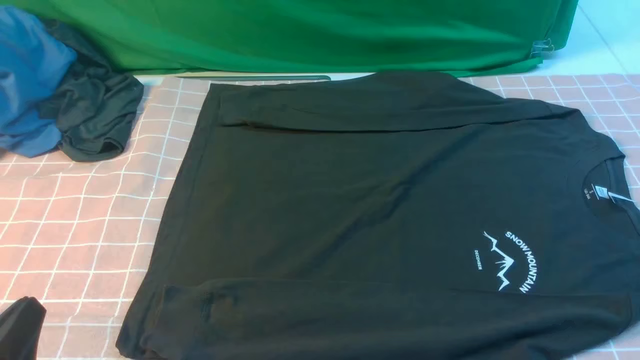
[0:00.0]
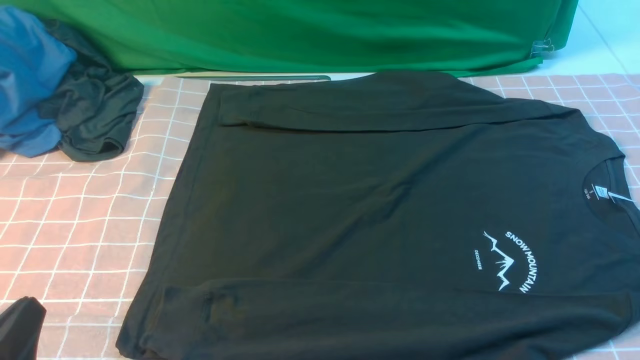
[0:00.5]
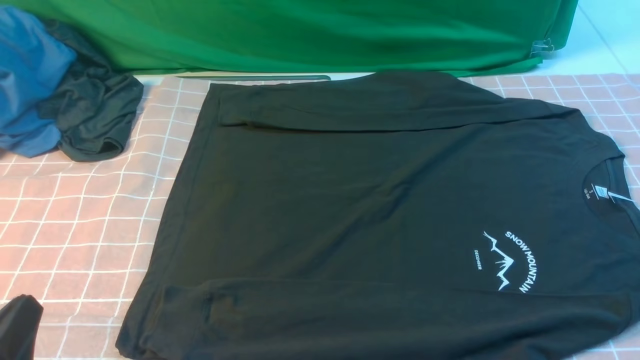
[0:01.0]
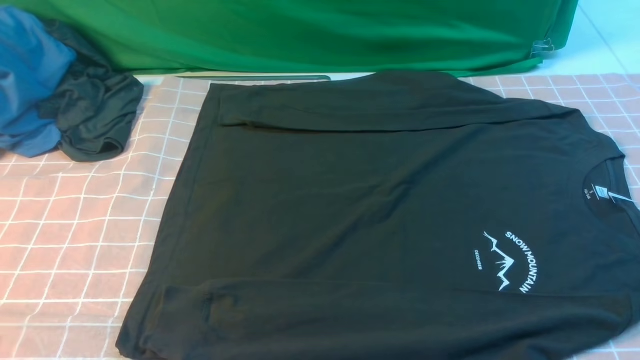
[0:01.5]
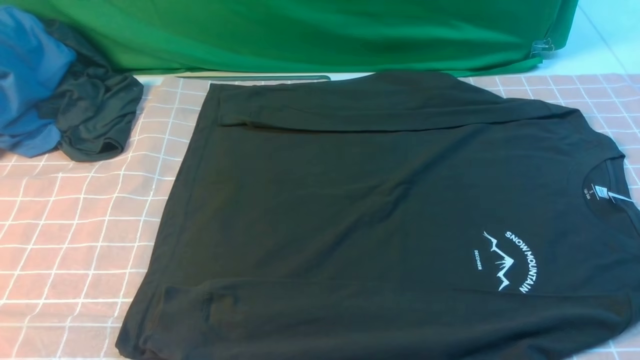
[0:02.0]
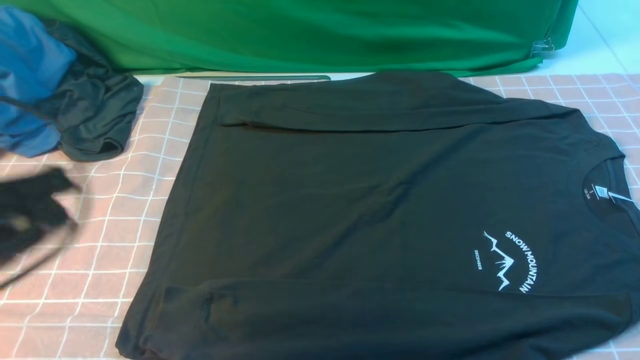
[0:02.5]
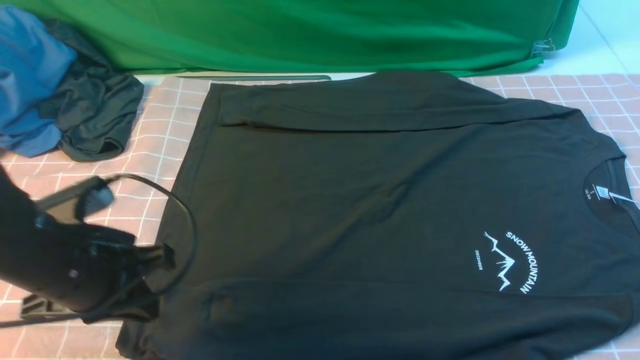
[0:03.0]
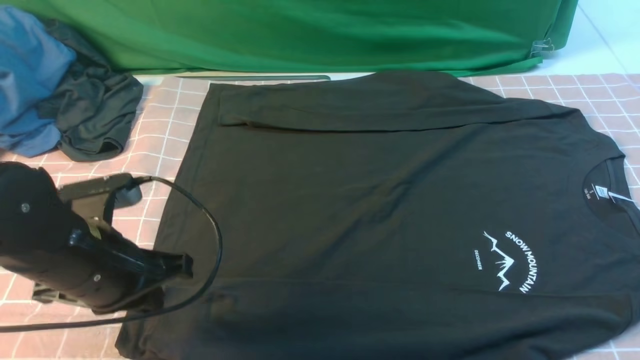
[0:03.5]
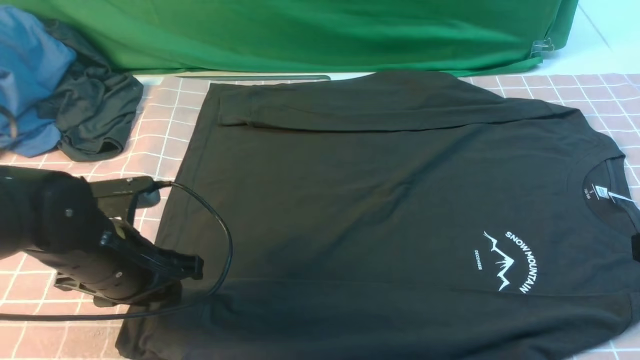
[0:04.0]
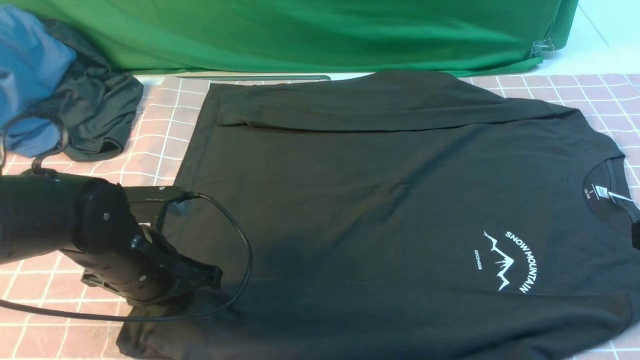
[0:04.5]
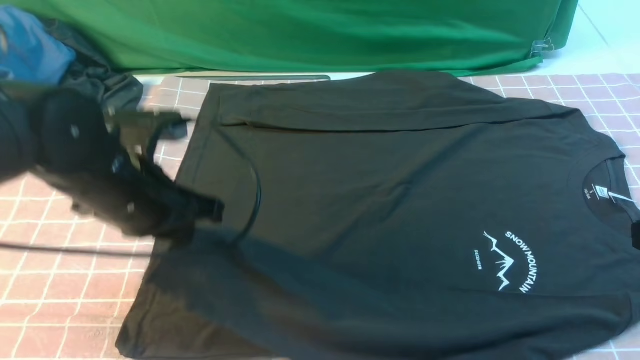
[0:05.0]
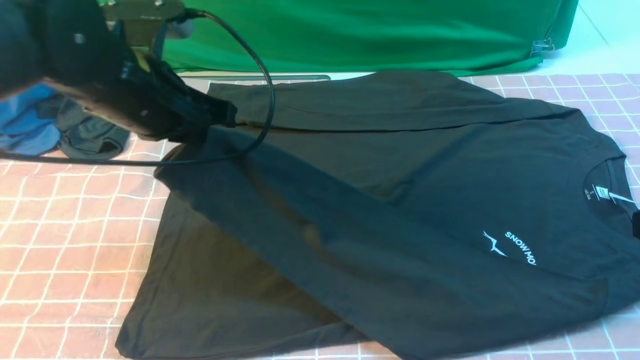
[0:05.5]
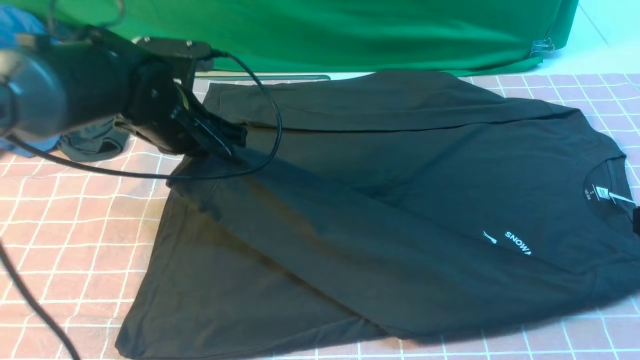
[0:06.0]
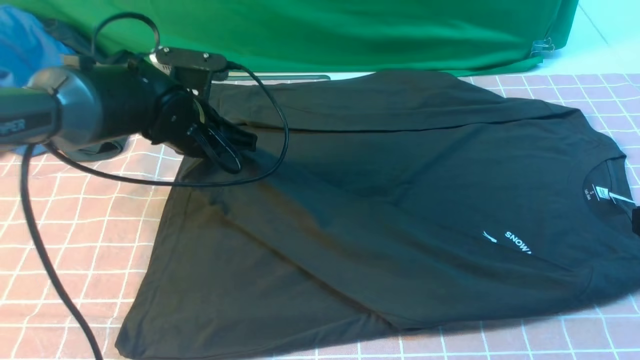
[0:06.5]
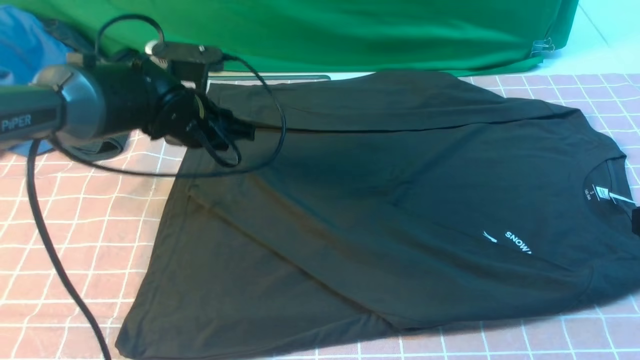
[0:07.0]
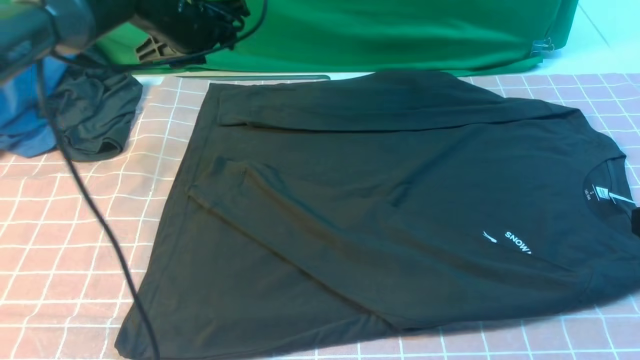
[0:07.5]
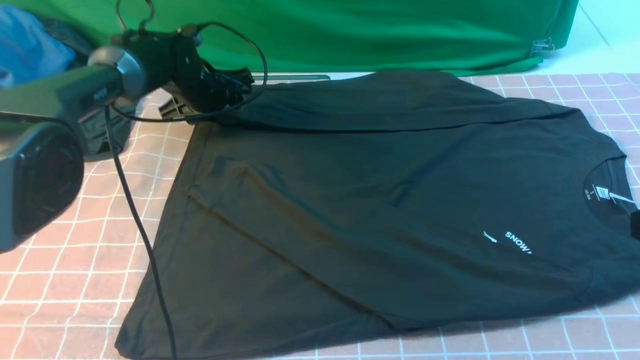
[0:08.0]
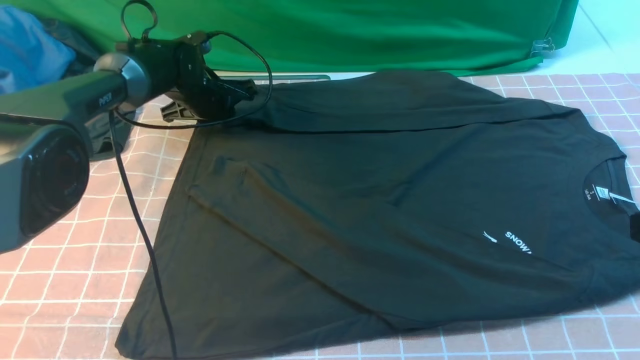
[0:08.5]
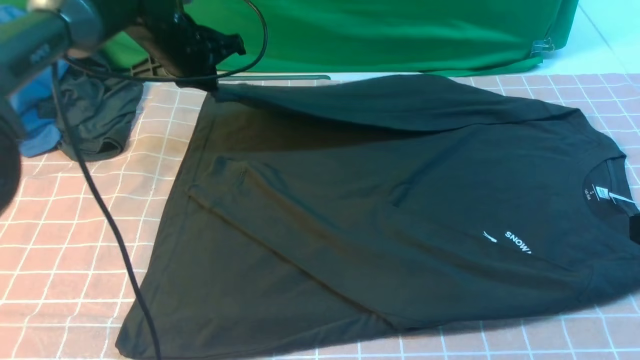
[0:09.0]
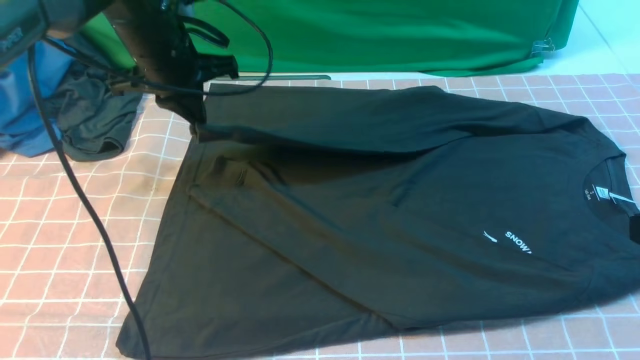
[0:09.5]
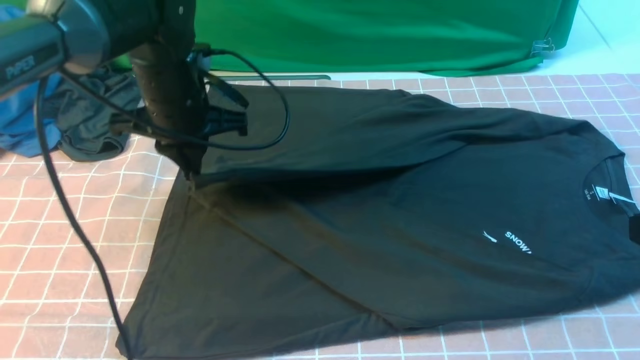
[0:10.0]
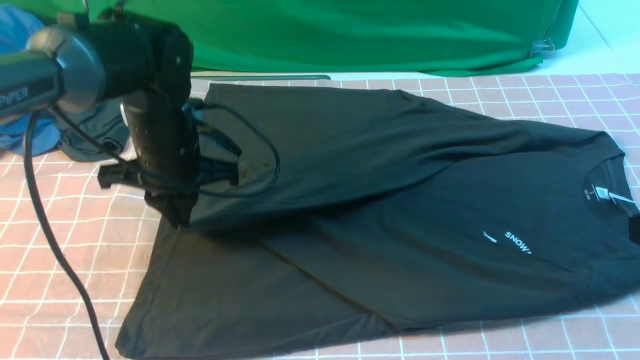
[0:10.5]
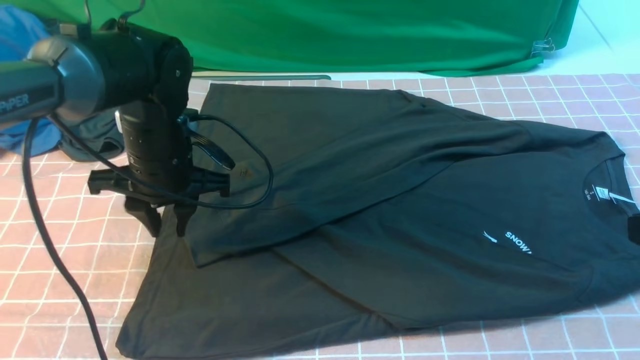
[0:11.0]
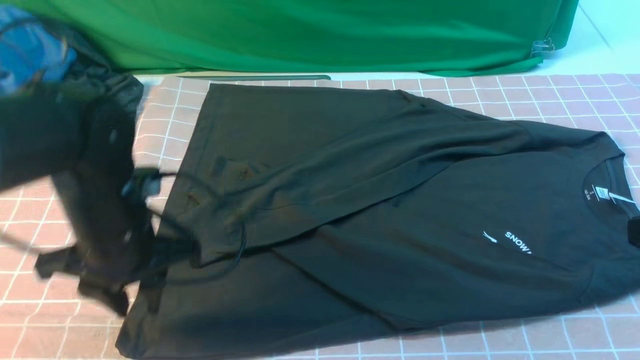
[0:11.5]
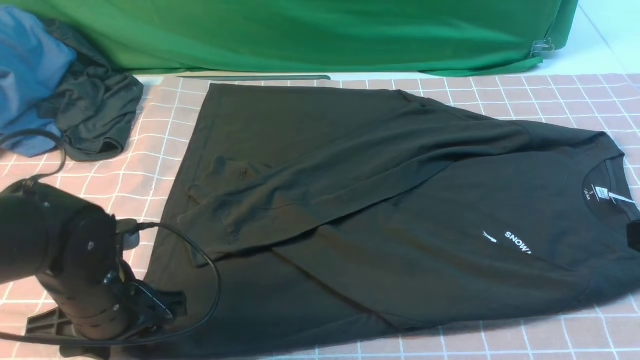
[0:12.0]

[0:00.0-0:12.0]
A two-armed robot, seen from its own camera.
Step, 0:00.0 to 0:04.5: use the left arm to clamp the cuff closest to it.
Step, 0:05.0 to 0:06.5: use the left arm to drag and place the cuff at the centered position on the left edge of the fabric.
Step, 0:07.0 to 0:08.5: use the left arm to clamp the cuff farthest from it.
Step, 0:09.0 to 0:11.0: use the left arm to drag and drop the cuff onto the cuff closest to the left arm.
0:00.0 to 0:02.0: The left gripper heads upward, covering approximately 10 cm.
0:02.0 to 0:04.0: The left gripper is displaced forward and downward by about 20 cm, and opens up, while the right gripper goes about 15 cm upward and forward, and closes its fingers.
0:04.0 to 0:06.0: The left gripper moves forward and upward, roughly 15 cm, and closes up.
0:06.0 to 0:08.0: The left gripper travels forward and downward by roughly 15 cm, and opens up.
0:08.0 to 0:10.0: The left gripper shifts some 15 cm backward and upward, and closes its fingers.
0:10.0 to 0:12.0: The left gripper travels backward and downward by some 20 cm, and opens.

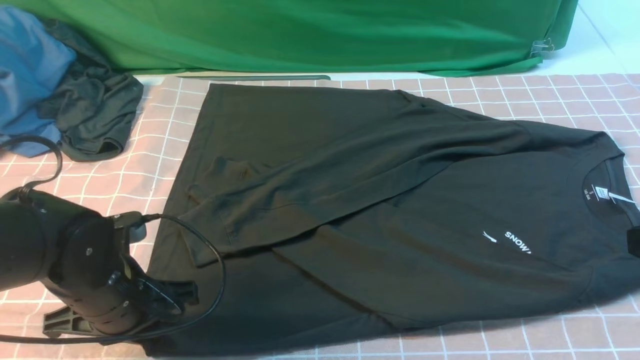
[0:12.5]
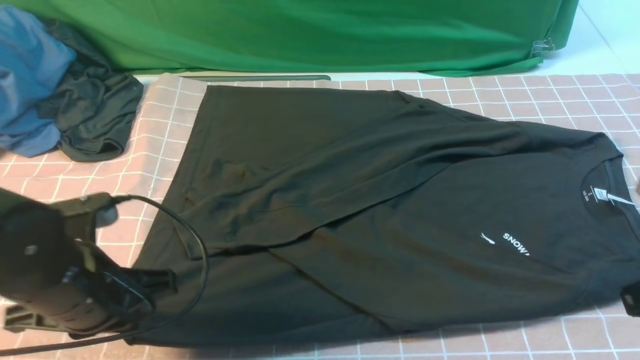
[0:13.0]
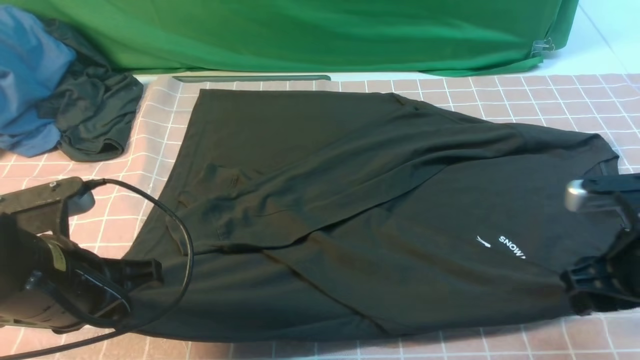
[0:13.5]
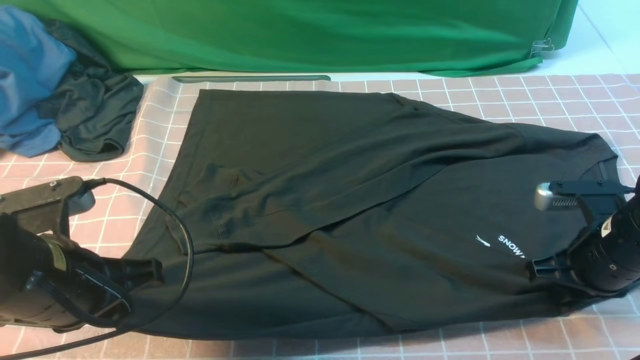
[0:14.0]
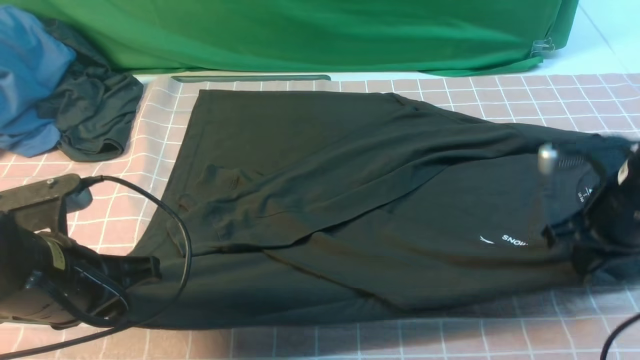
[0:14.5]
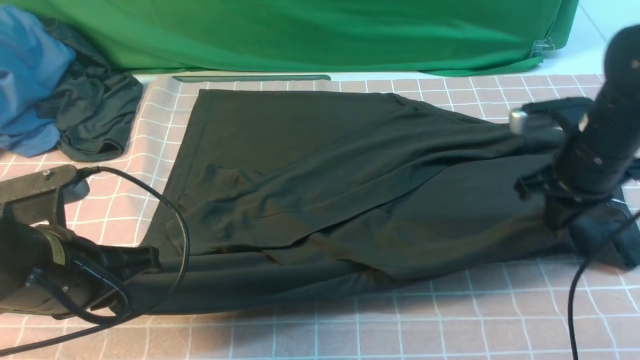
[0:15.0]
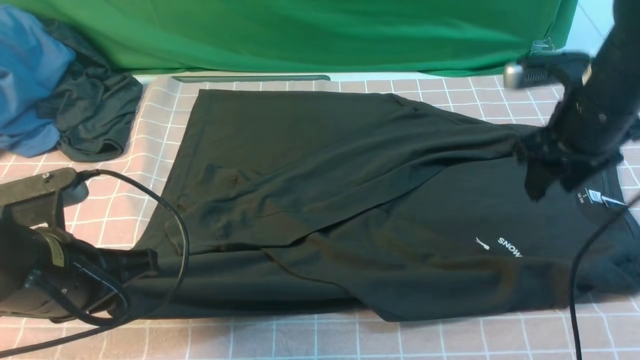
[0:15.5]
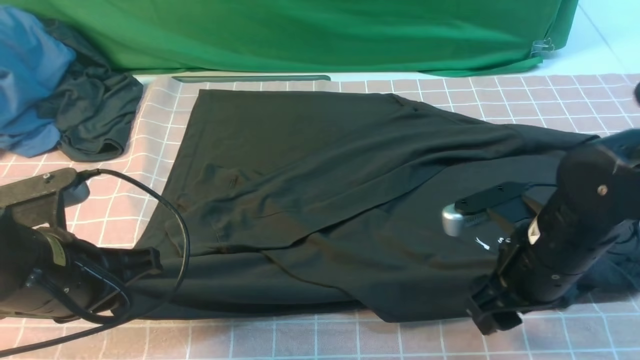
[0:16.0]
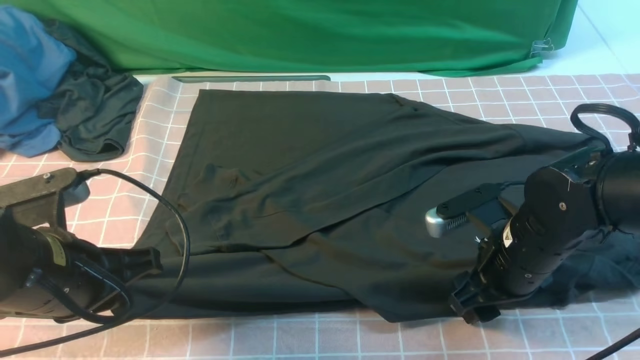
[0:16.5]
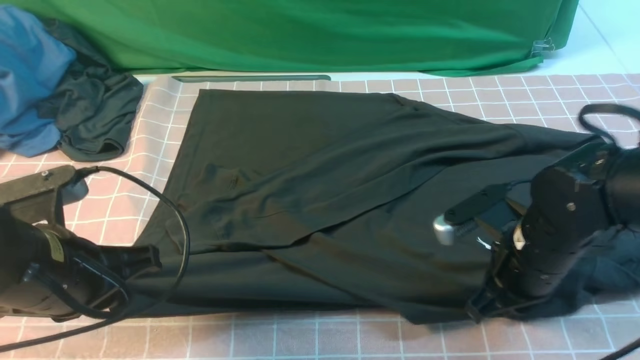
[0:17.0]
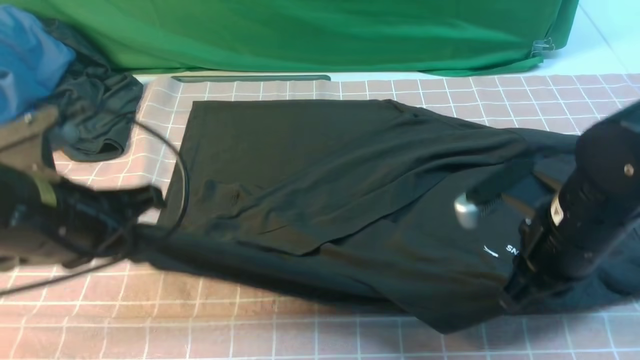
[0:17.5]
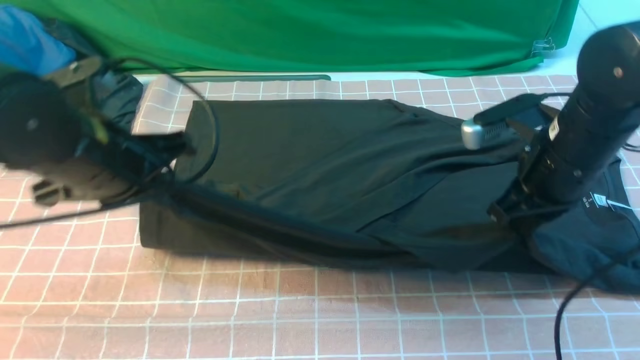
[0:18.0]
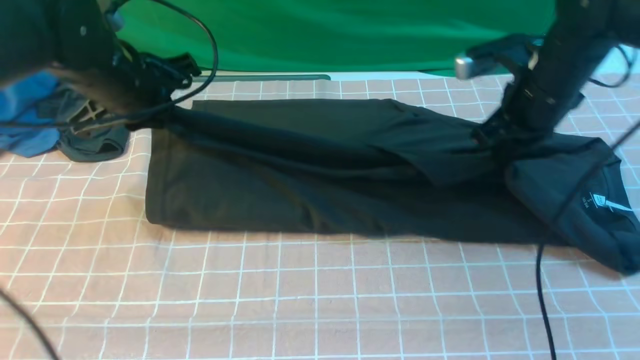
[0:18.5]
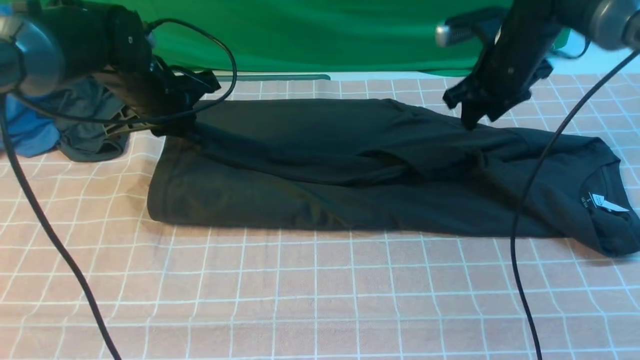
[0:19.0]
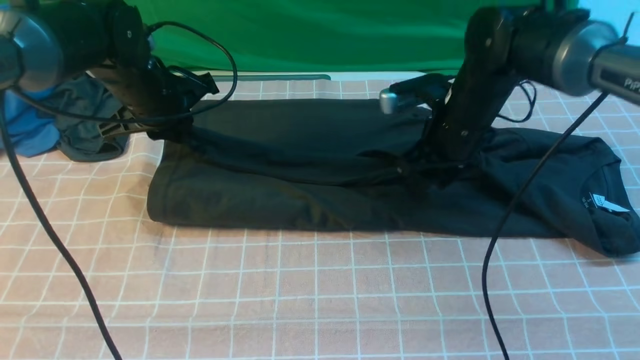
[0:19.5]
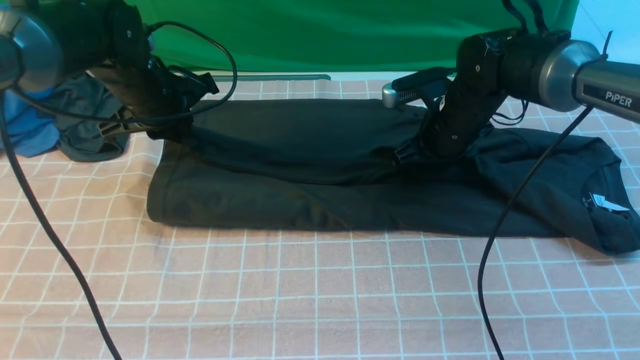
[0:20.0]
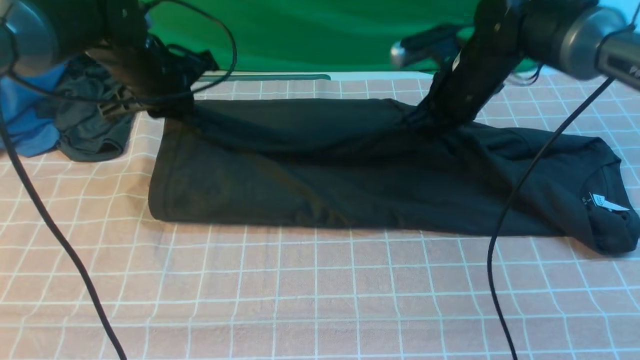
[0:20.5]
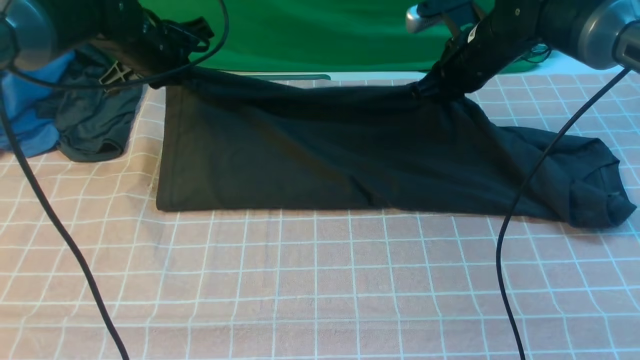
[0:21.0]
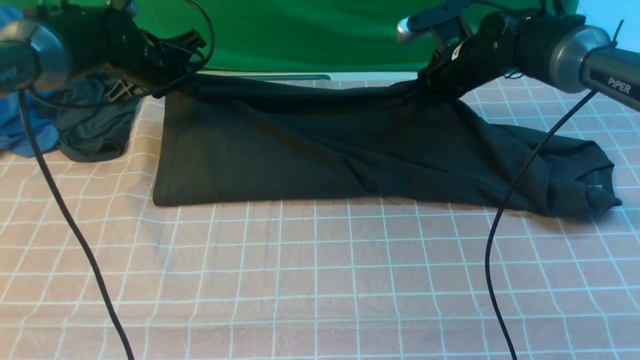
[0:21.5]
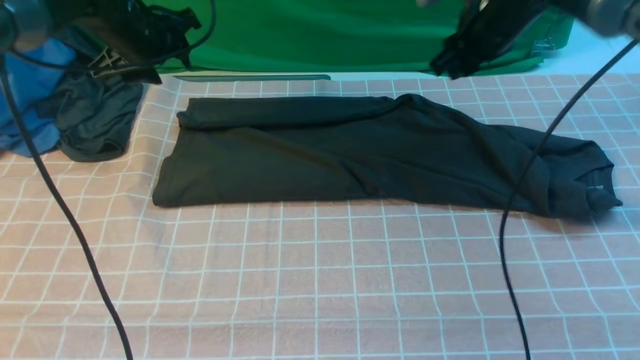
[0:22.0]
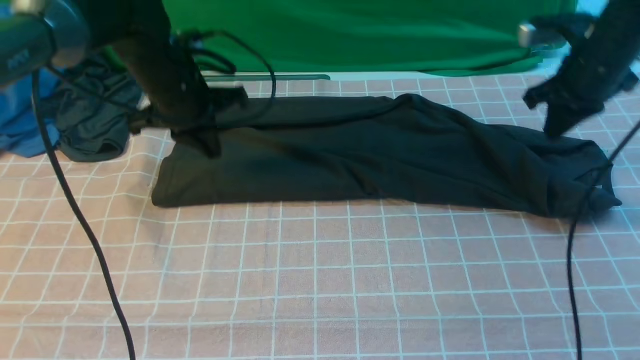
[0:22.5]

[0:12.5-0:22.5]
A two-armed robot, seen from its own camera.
Step, 0:12.5 to 0:14.0: use both arms simultaneously to clamp the lower edge of the clothing fabric.
Step, 0:14.5 to 0:21.5: use both arms to drag the lower edge of the fabric forward and fold it over the upper edge.
0:12.5 to 0:14.5: The right gripper goes about 15 cm forward and downward, and opens, then closes once more; the left gripper moves upward, about 5 cm.
0:14.5 to 0:16.5: The right gripper heads to the left and downward, covering some 10 cm, moves about 5 cm forward and comes back, and opens.
0:16.5 to 0:18.5: The right gripper moves forward and upward, roughly 15 cm, and closes up; the left gripper is displaced forward by about 20 cm.
0:18.5 to 0:20.5: The right gripper is displaced to the left by approximately 5 cm, and opens, then closes again; the left gripper shifts approximately 5 cm forward.
0:20.5 to 0:22.5: The right gripper goes about 15 cm to the right. Meanwhile the left gripper opens, then closes again.
